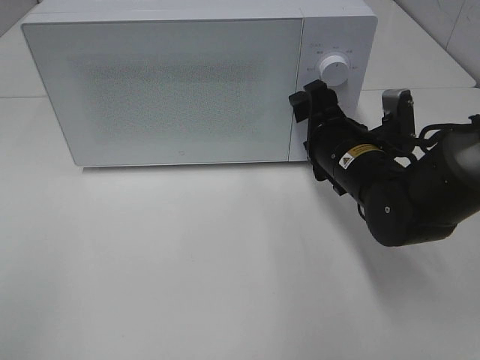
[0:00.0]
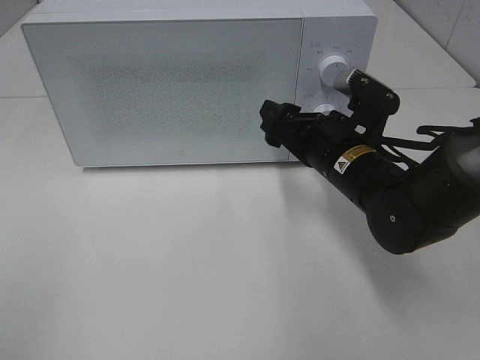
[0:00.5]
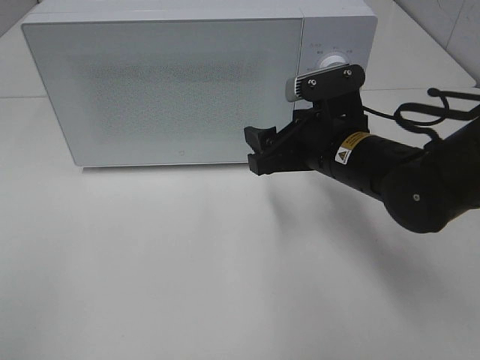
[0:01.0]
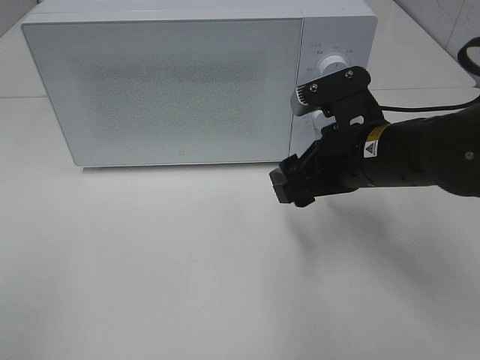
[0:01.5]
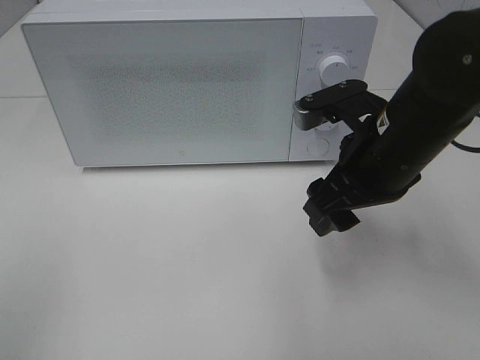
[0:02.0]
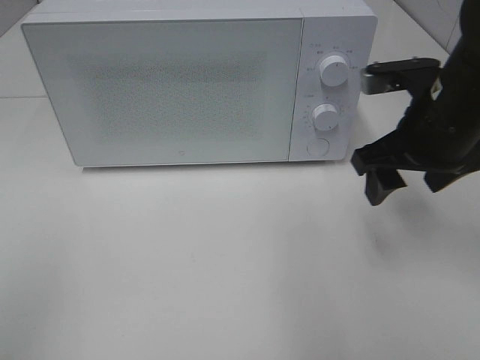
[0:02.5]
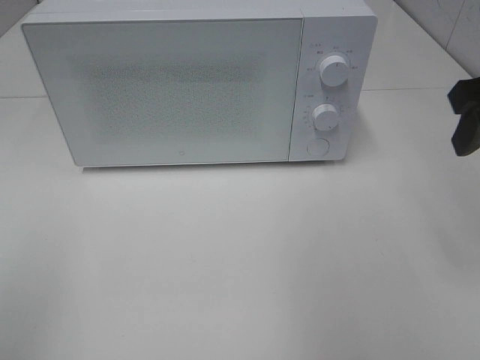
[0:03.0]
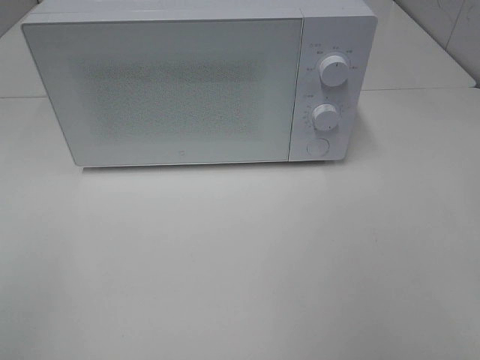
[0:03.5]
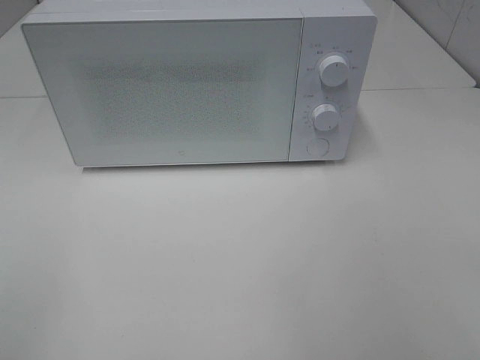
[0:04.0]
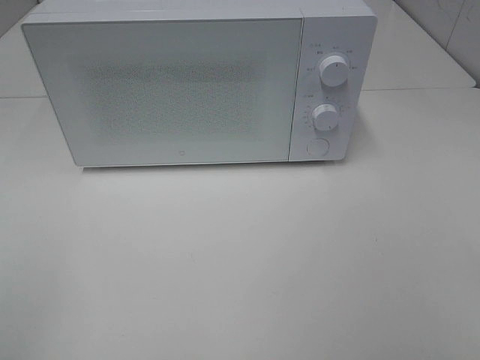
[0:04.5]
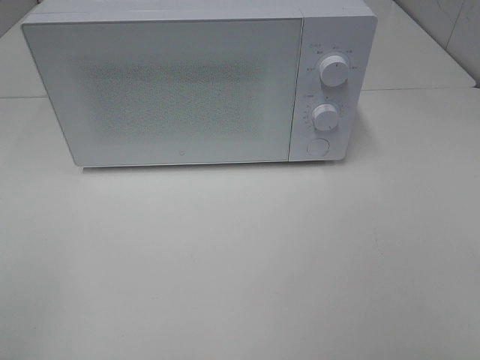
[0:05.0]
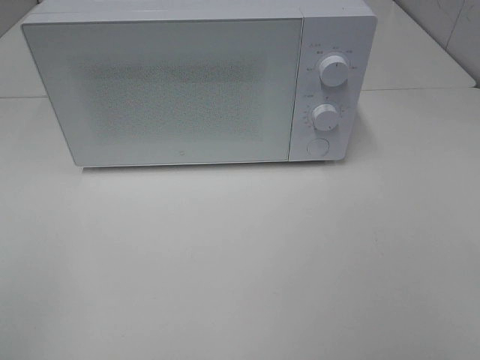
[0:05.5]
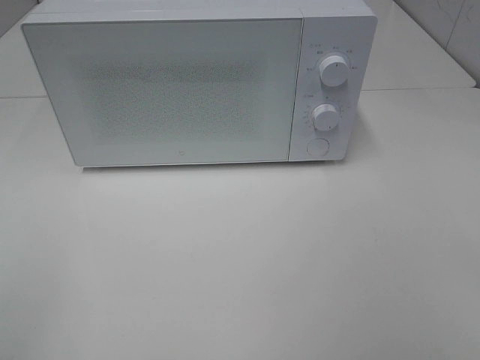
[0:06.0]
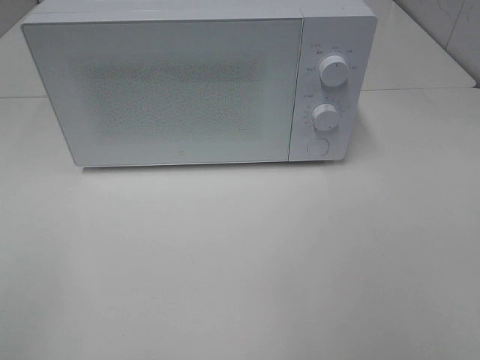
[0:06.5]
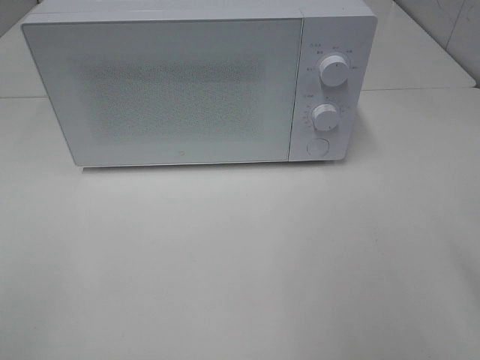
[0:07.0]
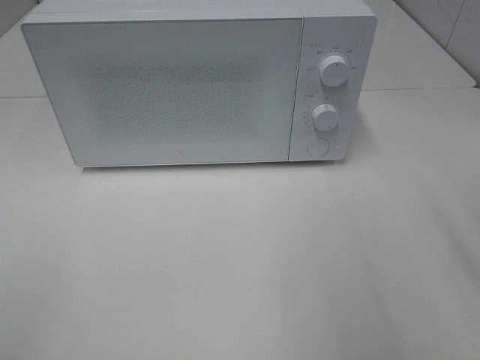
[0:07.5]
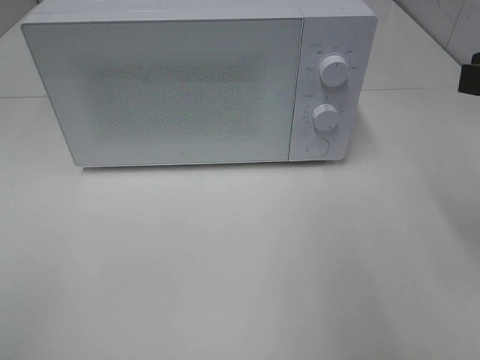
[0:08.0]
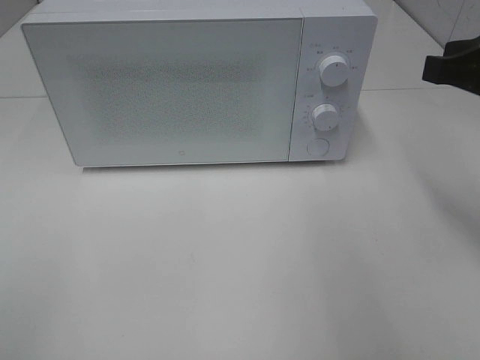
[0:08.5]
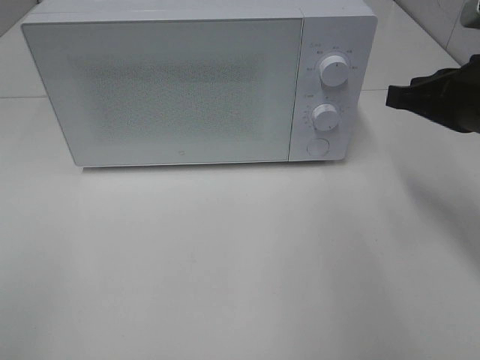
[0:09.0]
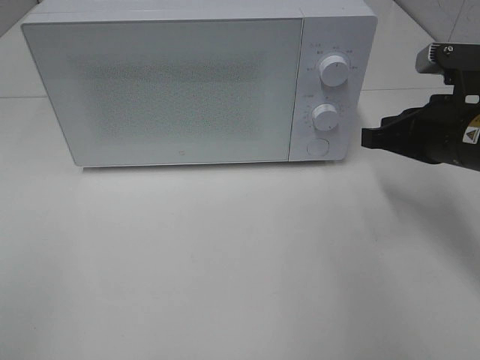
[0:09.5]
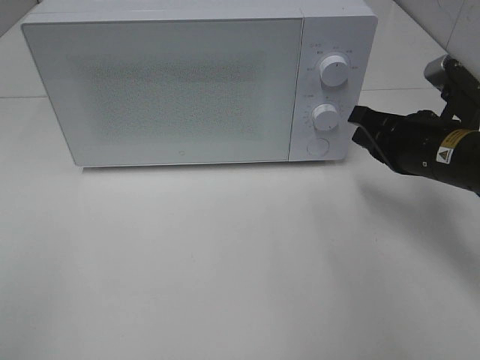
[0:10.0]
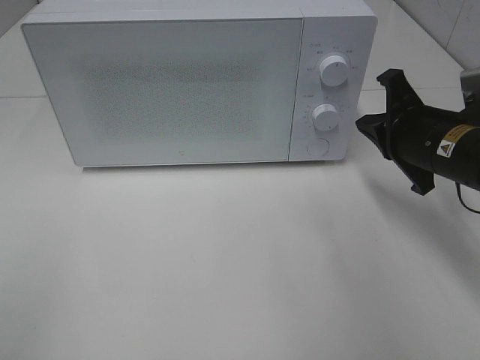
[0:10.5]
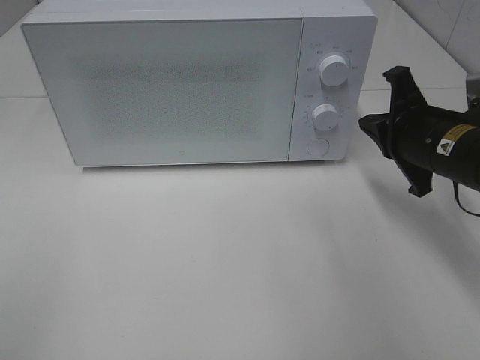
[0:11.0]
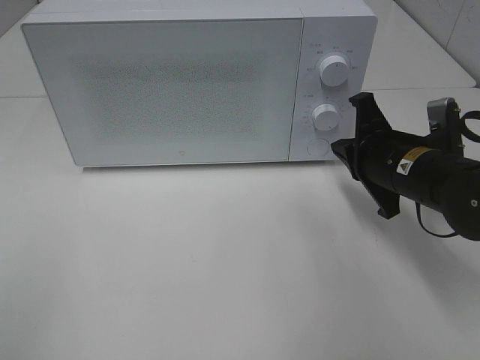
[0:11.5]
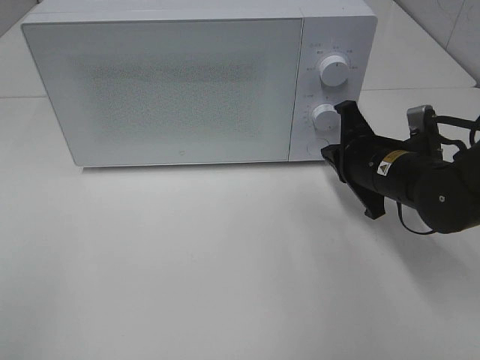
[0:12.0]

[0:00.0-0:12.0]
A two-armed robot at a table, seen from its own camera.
Task of the whole recording: Heat the burger.
0:00.0 to 0:02.0: The right gripper goes some 10 cm upward and backward.
0:02.0 to 0:04.0: The right gripper moves backward, to the right and upward, roughly 25 cm.
0:06.0 to 0:08.0: The right gripper moves forward, roughly 15 cm, and closes up.
0:08.0 to 0:10.0: The right gripper moves downward and forward, about 15 cm.
0:10.0 to 0:12.0: The right gripper ends up roughly 5 cm from where it was.

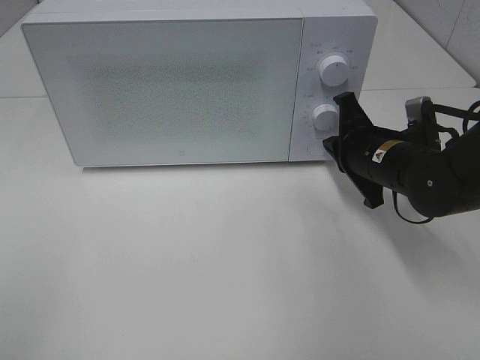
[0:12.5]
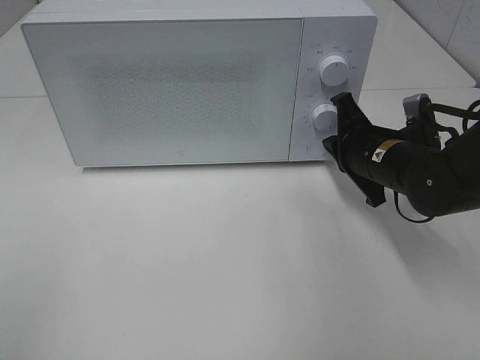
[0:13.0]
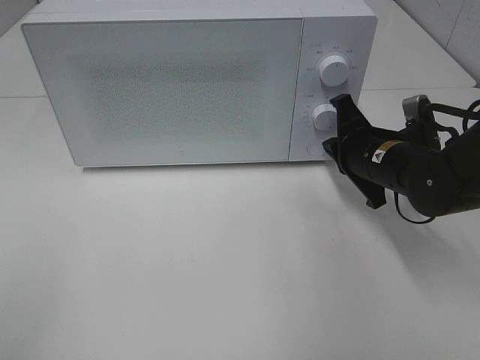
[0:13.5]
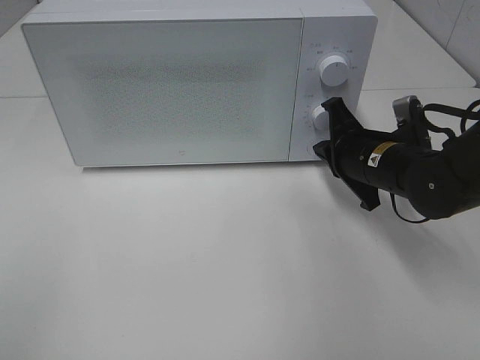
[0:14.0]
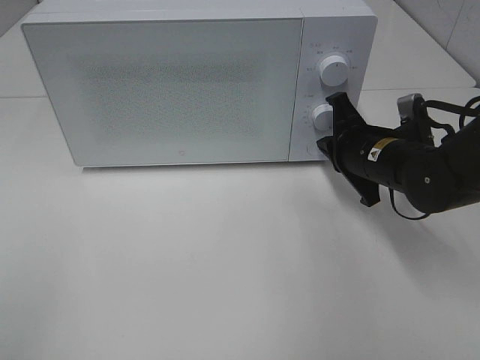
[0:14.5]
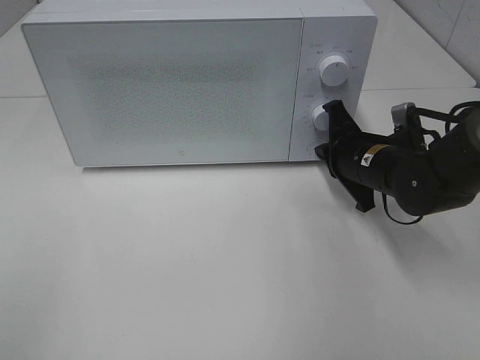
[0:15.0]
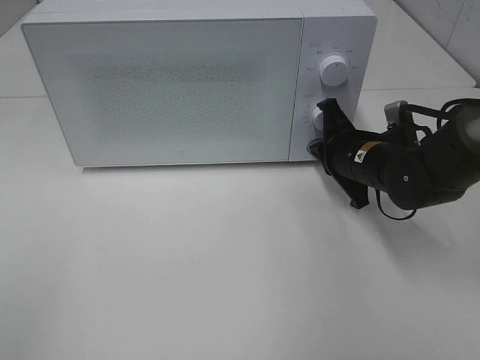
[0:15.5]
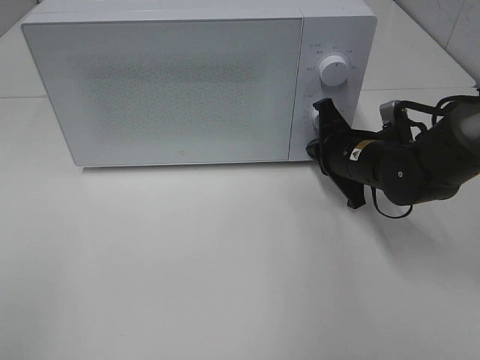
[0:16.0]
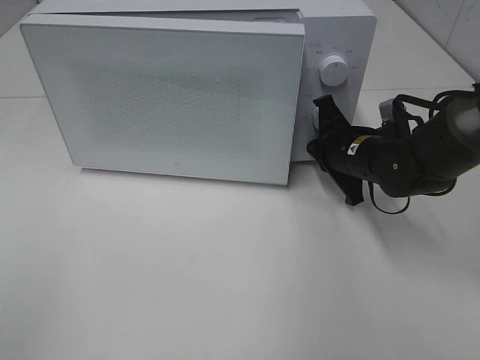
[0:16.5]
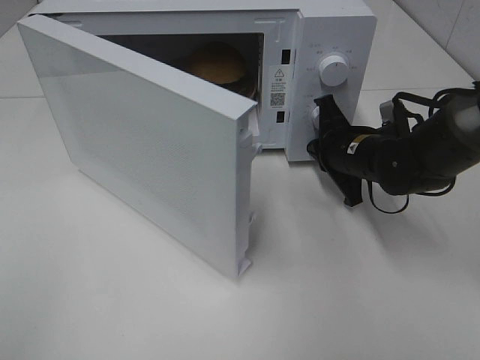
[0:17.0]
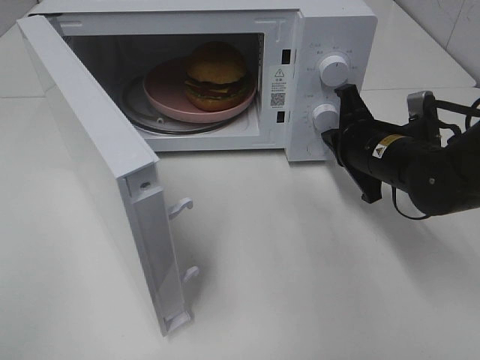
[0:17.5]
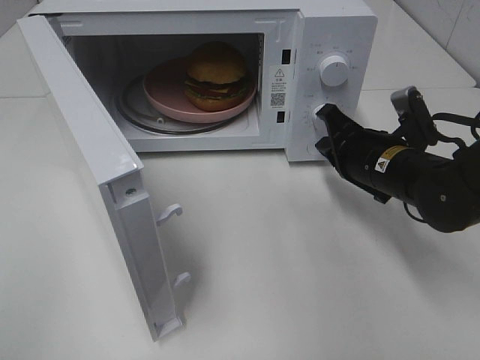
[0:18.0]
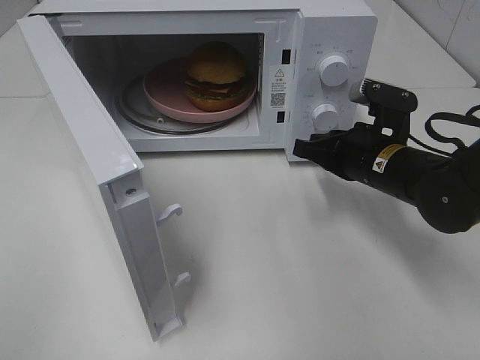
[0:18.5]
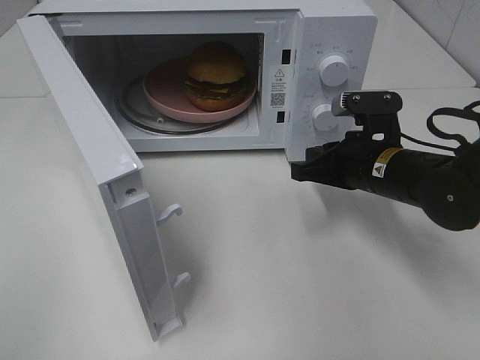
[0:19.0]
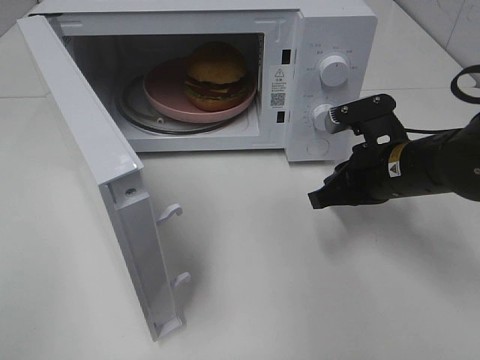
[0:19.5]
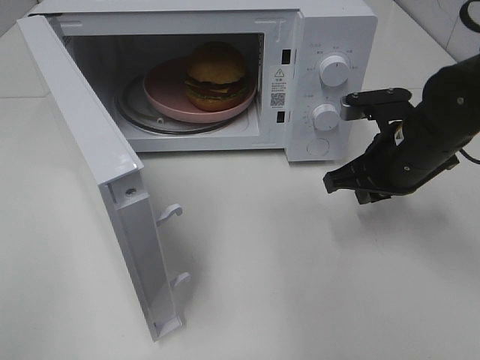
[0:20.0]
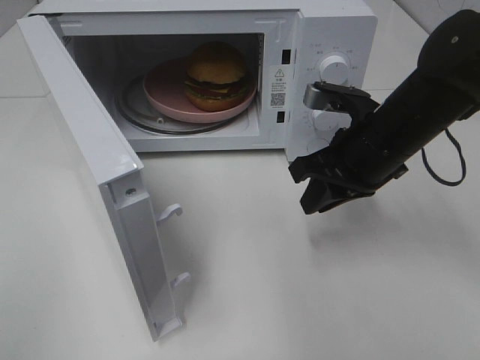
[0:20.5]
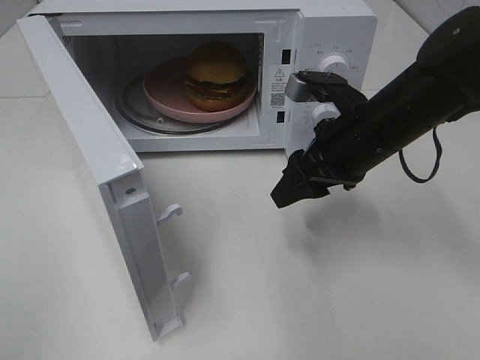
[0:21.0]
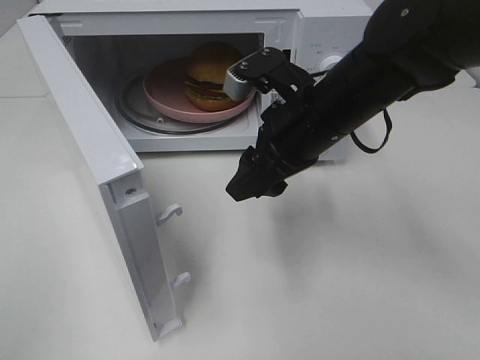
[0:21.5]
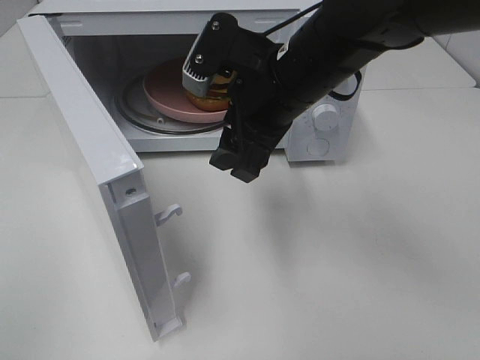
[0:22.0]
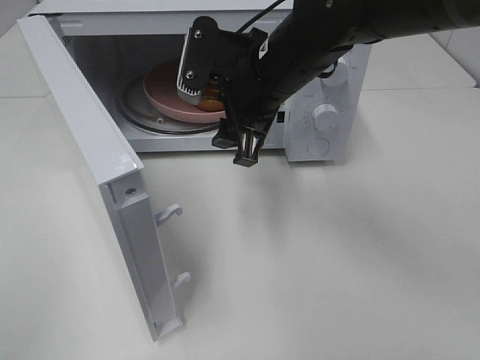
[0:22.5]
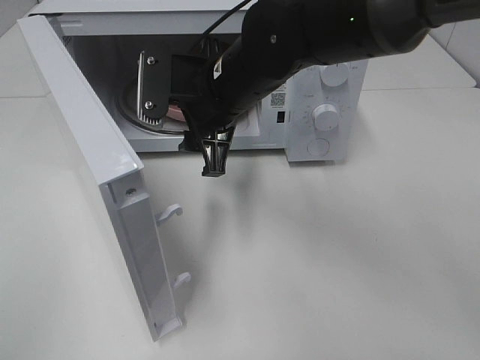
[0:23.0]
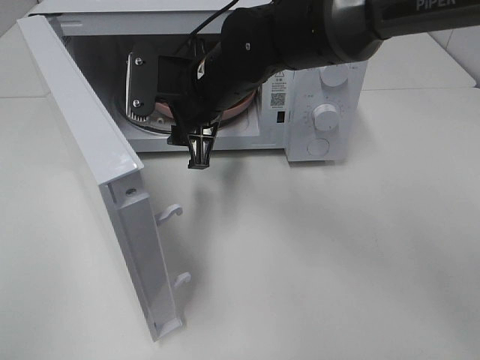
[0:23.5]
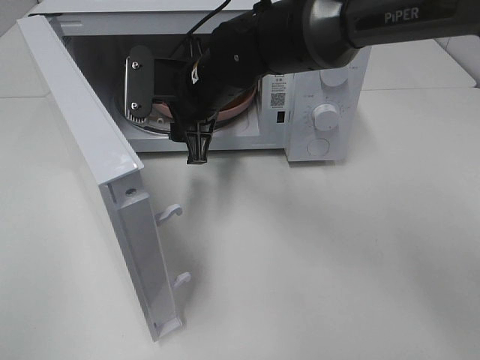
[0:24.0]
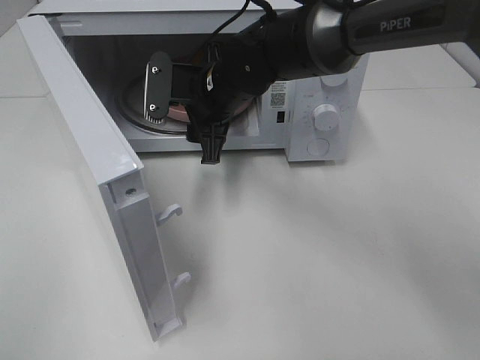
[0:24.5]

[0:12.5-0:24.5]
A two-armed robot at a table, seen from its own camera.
Task of the whole recording: Heat the burger.
Step, 0:12.5 to 0:17.0: Right hand: press the switch.
0:12.5 to 0:16.5: There are only small adjustments of the grippers.
0:16.5 to 0:18.5: The right gripper shifts roughly 5 cm backward.
0:18.5 to 0:20.5: The right gripper goes approximately 5 cm upward.
0:20.5 to 0:22.5: The right gripper moves to the left and upward, some 15 cm, and opens up.
0:22.5 to 0:24.5: The right gripper goes some 10 cm downward, forward and to the left.

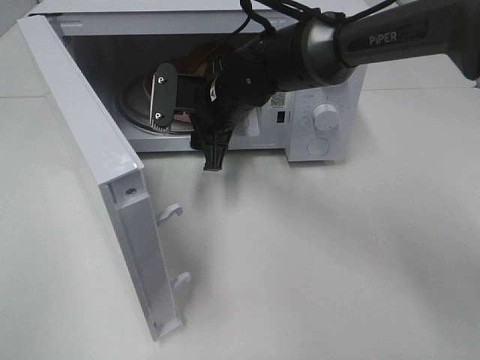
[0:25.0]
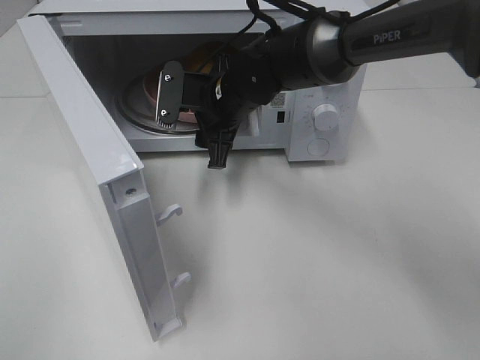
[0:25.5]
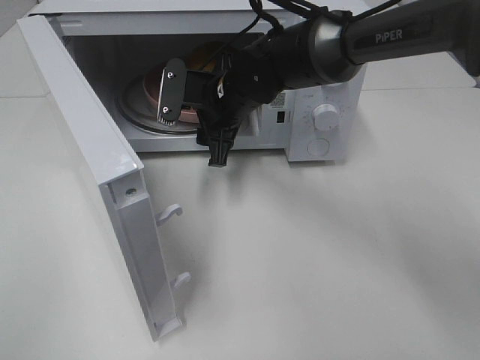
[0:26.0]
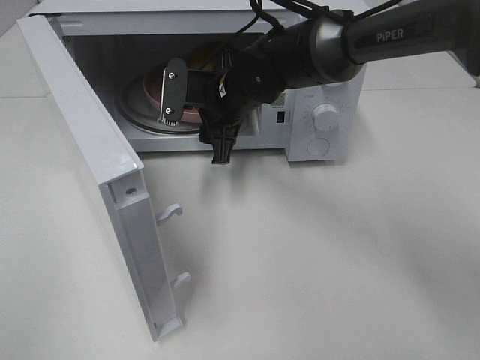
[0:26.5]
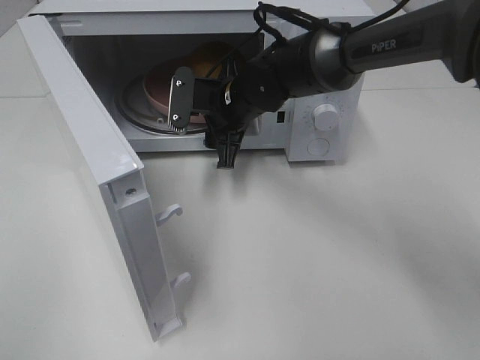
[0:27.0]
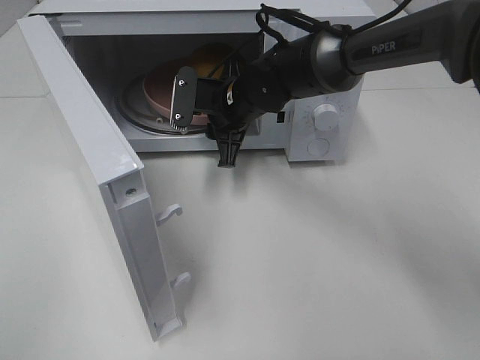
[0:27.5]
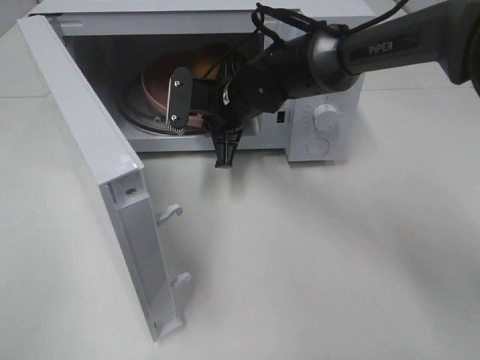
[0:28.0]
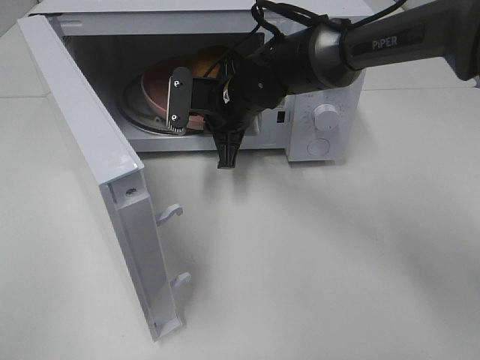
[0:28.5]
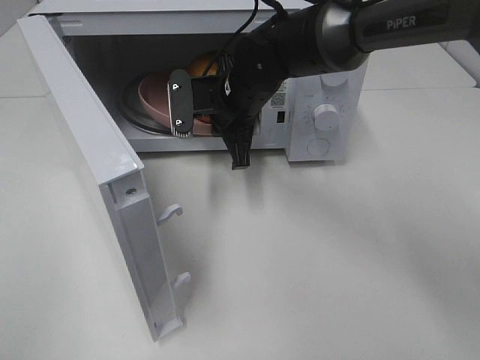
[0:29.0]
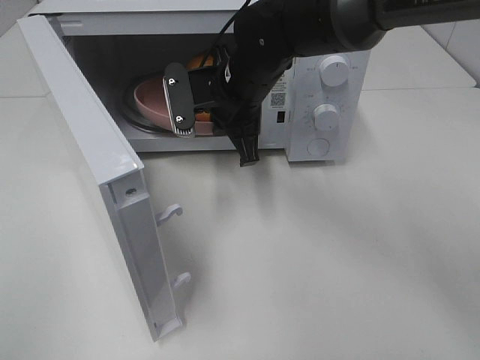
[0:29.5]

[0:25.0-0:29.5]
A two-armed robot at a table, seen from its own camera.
Task of the whole recording: Heat the burger.
Step, 0:25.0 to 0:28.5: Right hand: grab the plate with the hamburger.
0:25.0 to 0:27.0: There are only small adjustments of the grippers.
0:27.0 to 0:29.5: The right gripper shifts roughly 5 cm upward, and closes its fingers.
